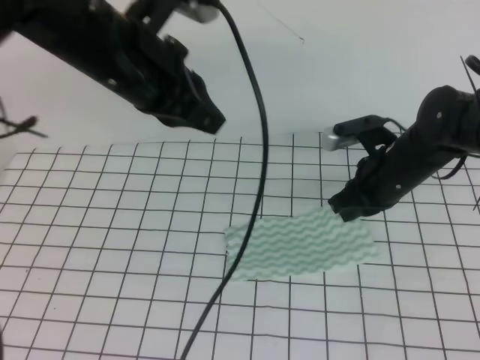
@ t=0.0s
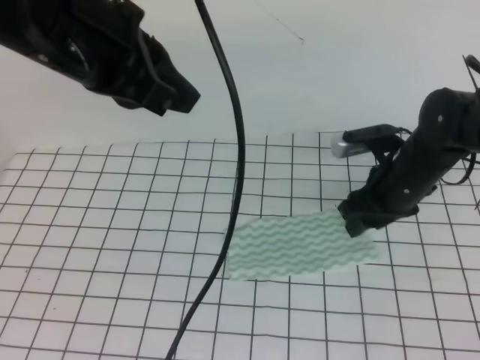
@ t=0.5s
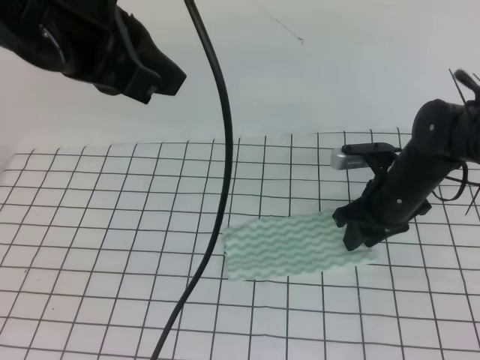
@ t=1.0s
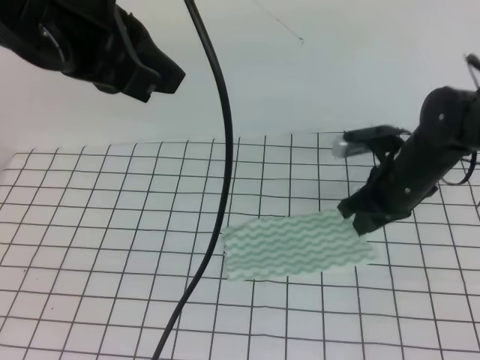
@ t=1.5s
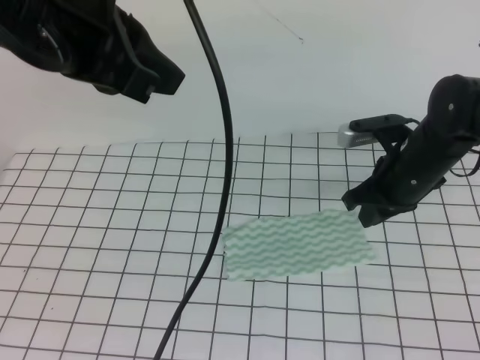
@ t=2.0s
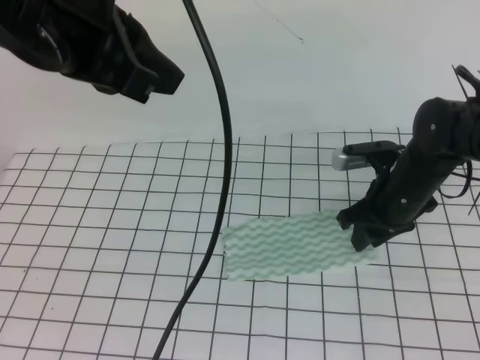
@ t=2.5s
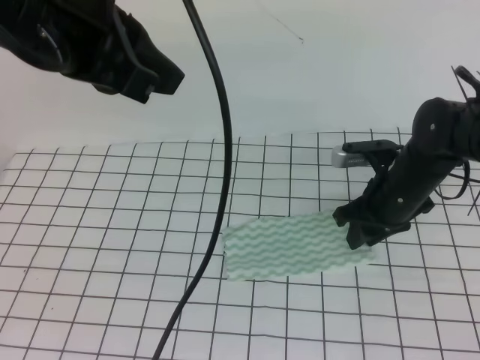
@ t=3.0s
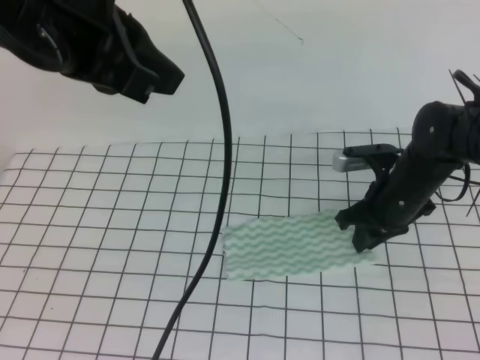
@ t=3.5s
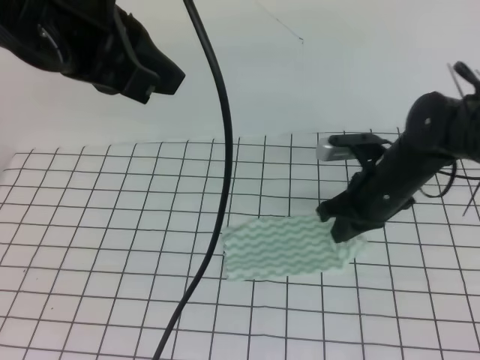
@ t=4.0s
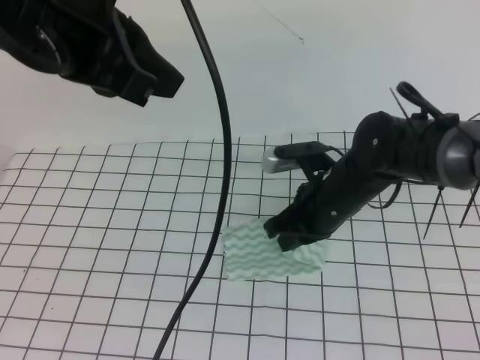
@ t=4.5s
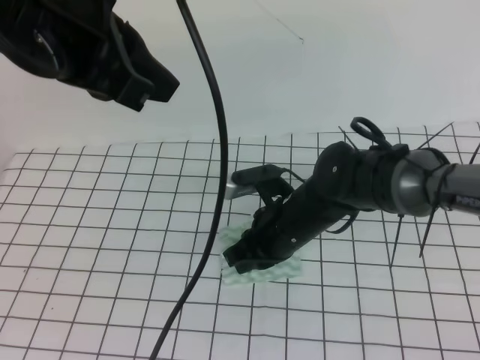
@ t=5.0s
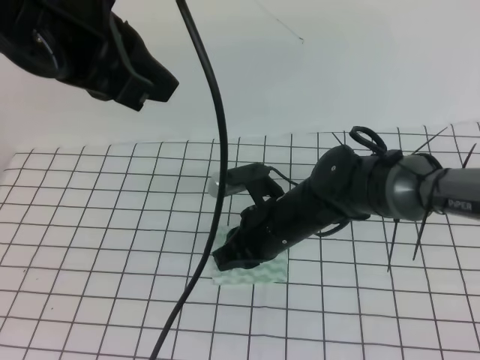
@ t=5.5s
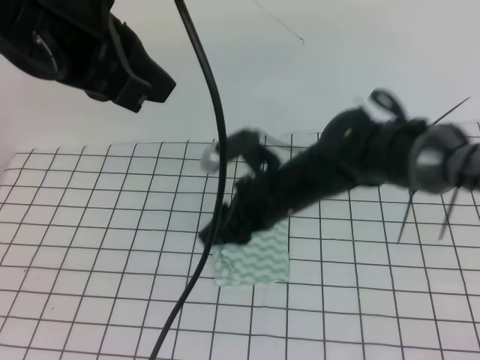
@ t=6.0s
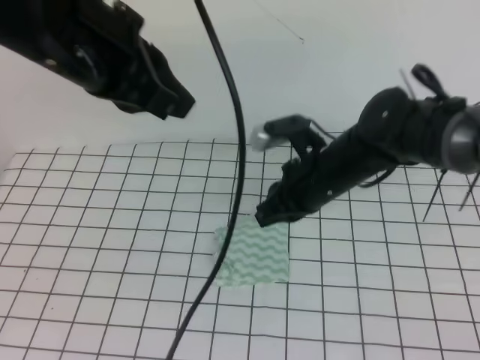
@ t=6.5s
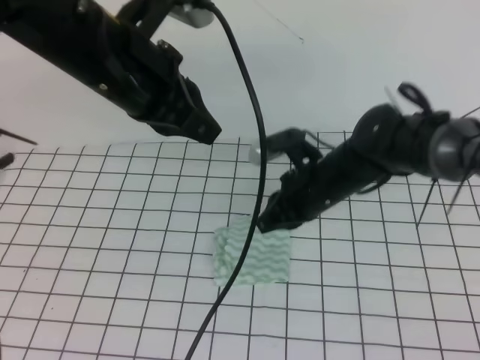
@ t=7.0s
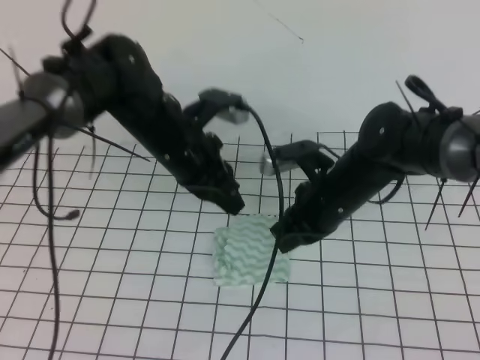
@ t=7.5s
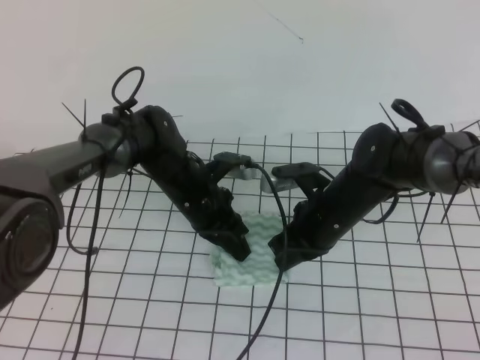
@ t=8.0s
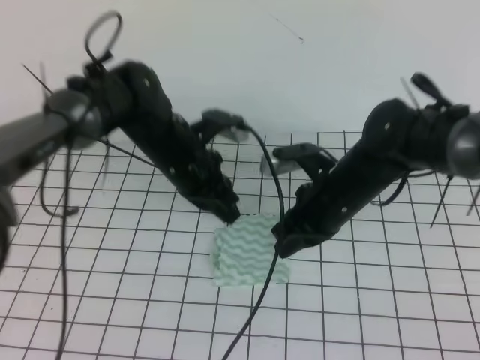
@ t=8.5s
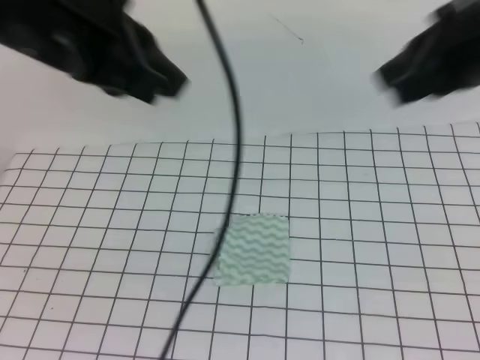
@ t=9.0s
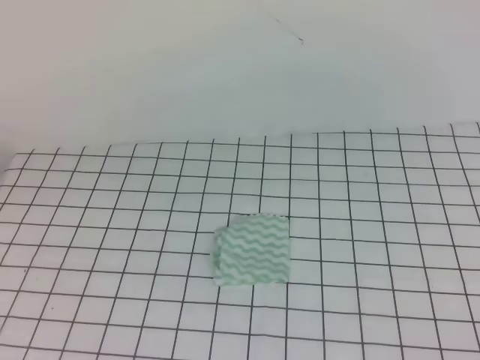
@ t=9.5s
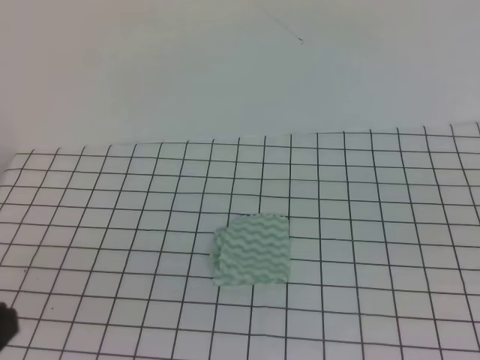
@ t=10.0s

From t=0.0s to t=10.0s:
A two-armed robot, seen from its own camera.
From t=0.0s to t=2.0s: The right gripper opens, then closes once more. Meanwhile the left gripper moves upward and backward, about 10 cm.
From t=2.0s to t=4.0s: The right gripper closes.
From t=4.0s to t=6.0s: The right gripper moves to the left, some 10 cm, and opens.
From t=6.0s to t=8.0s: The left gripper travels downward and forward by roughly 35 cm. Meanwhile the right gripper goes some 5 cm downward, and closes.
From t=8.0s to t=10.0s: The right gripper goes some 40 cm backward, upward and to the right, while the left gripper moves backward, upward and to the left, some 50 cm.

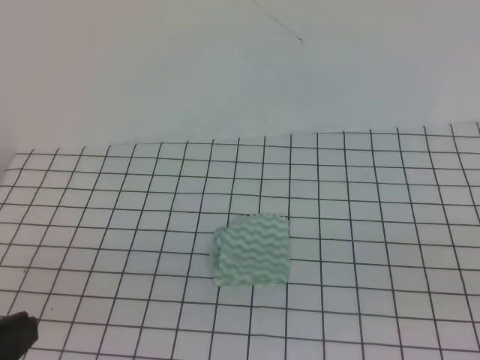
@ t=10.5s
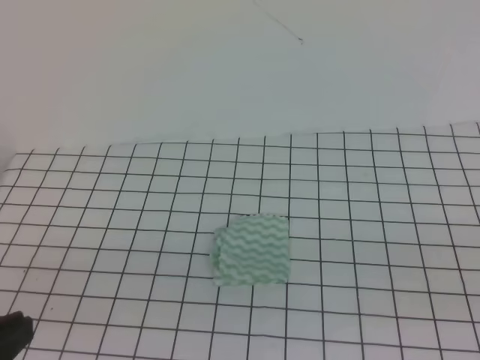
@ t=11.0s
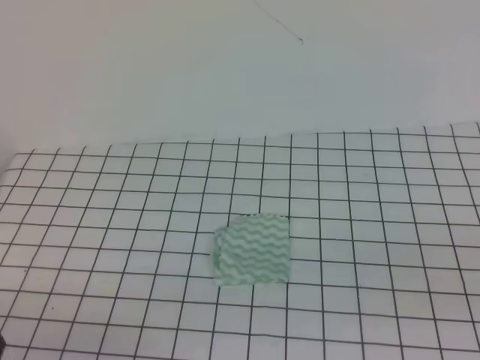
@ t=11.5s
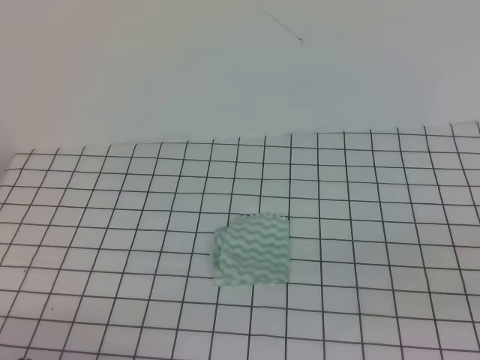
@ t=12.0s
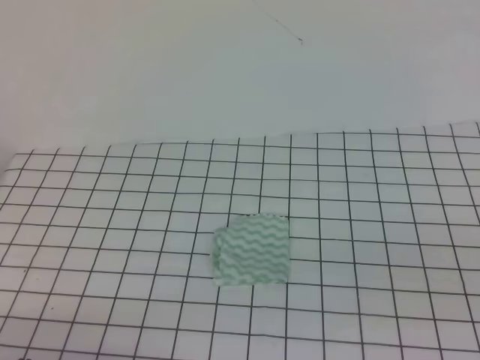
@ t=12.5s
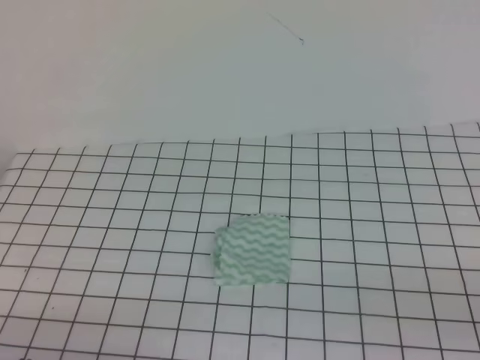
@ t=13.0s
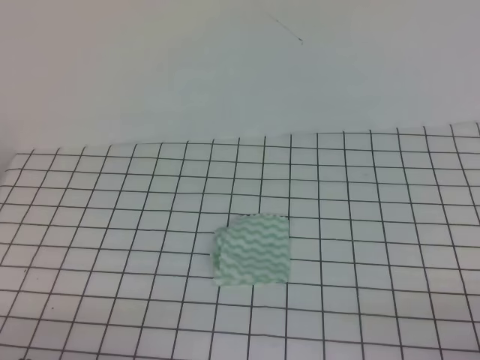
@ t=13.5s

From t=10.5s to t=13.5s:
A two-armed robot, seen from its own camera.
From t=10.5s to t=12.0s: The left gripper moves downward, roughly 15 cm.
